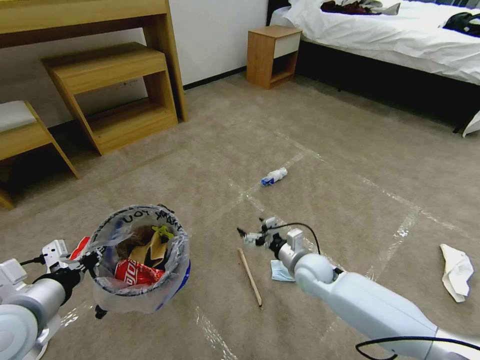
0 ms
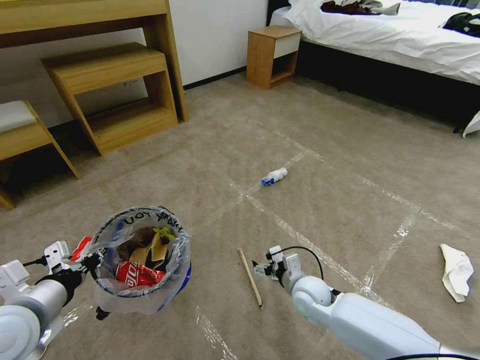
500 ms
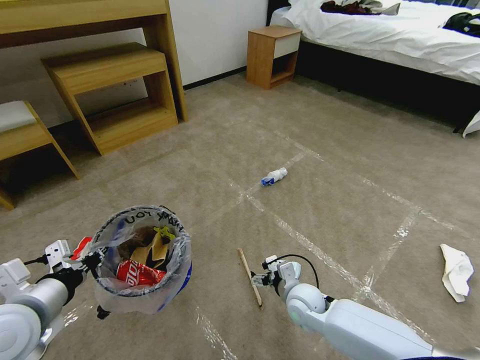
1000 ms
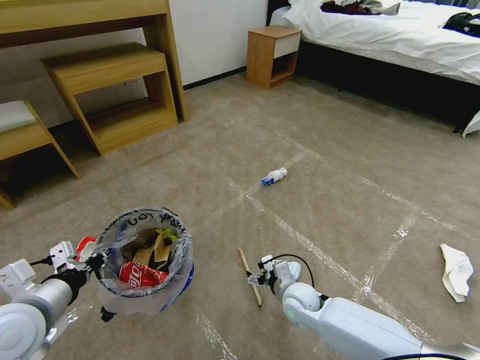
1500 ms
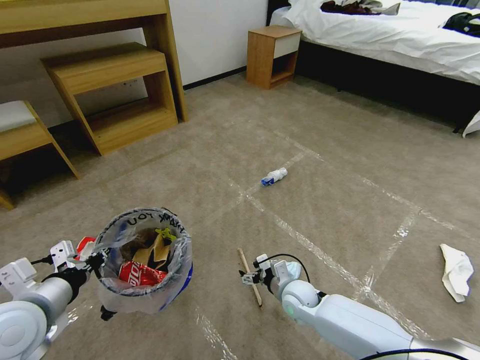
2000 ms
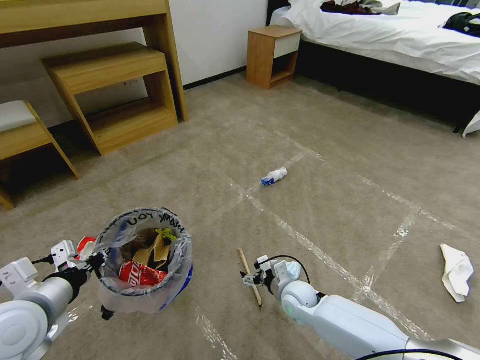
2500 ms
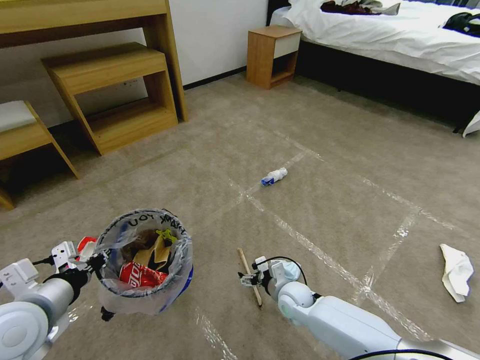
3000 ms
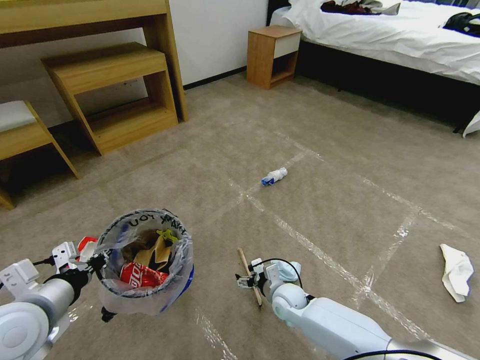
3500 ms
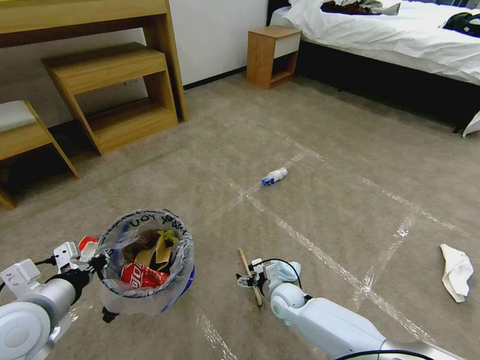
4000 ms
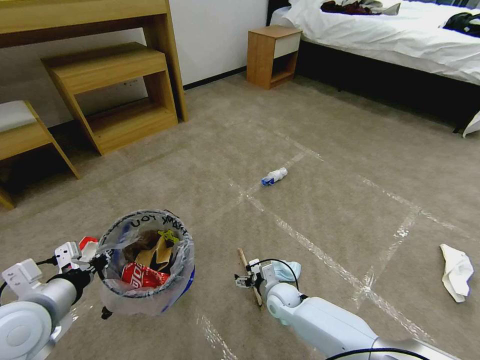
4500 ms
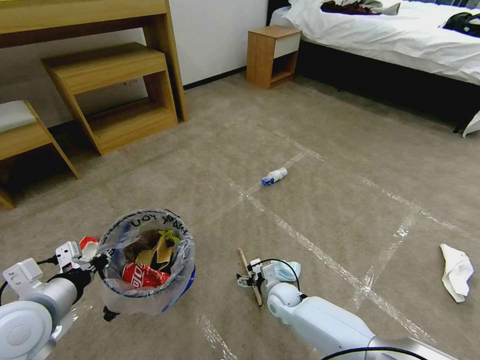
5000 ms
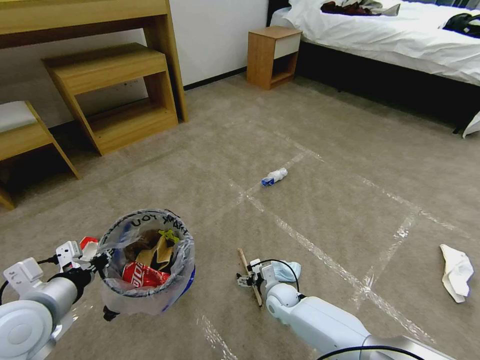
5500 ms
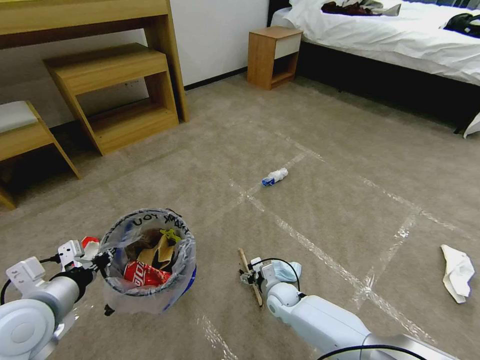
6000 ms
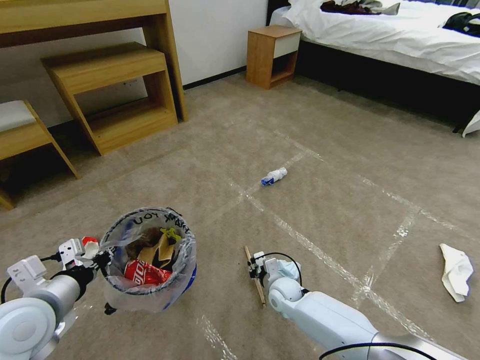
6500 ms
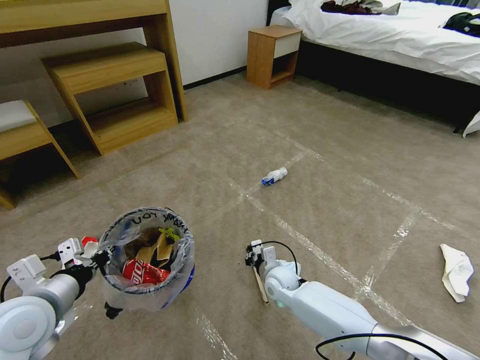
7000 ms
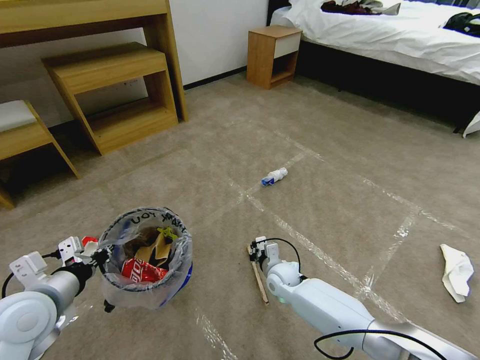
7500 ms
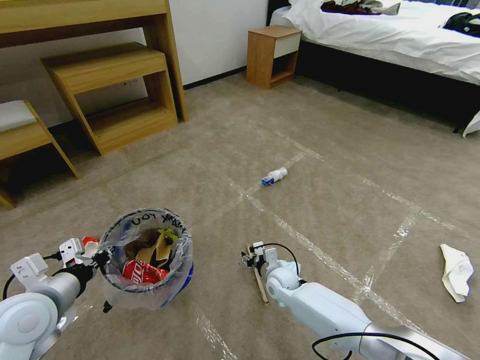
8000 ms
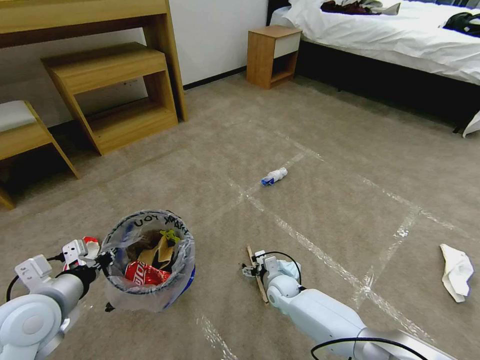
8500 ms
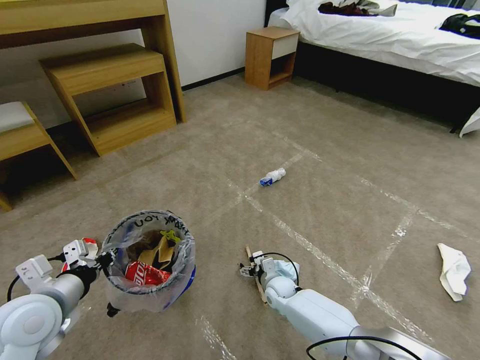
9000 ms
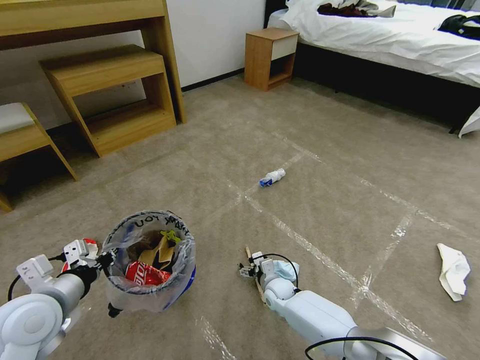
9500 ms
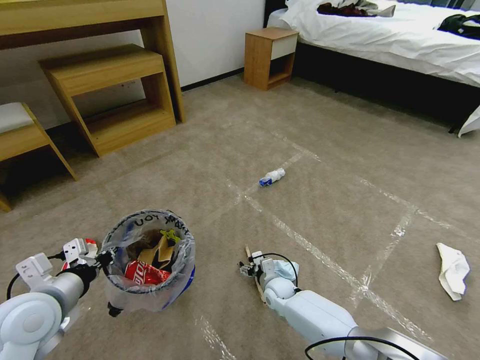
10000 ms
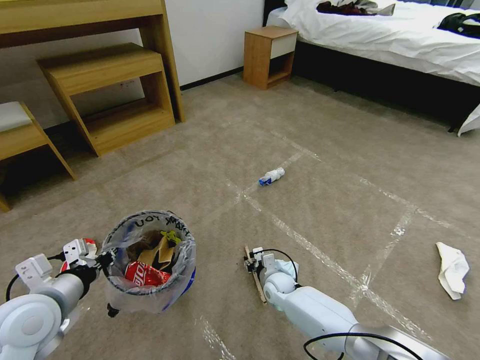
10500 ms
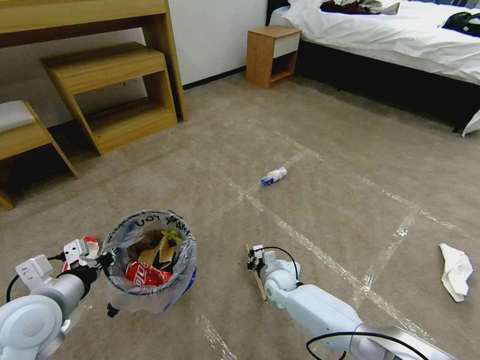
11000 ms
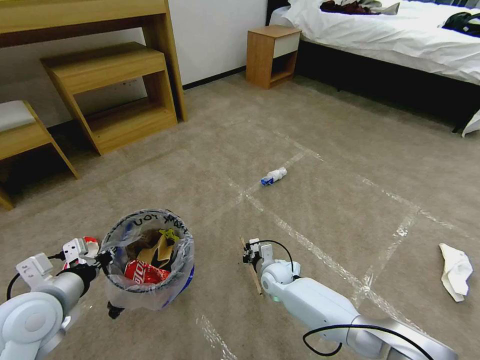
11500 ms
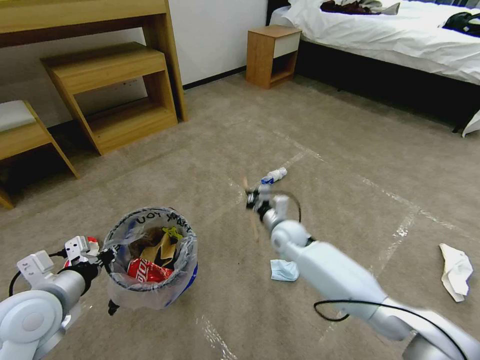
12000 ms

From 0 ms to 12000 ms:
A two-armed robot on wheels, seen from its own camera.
Task of the whole recording: Pick up the trash bin and place the garbage on the floor into it.
From 0 ms to 2000 ms: The right gripper is displaced downward by roughly 10 cm.
From 2000 ms to 4000 ms: The grippers stay close to where they were, moving slightly.
From 4000 ms to 6000 ms: There are only small adjustments of the grippers.
From 6000 ms to 8000 ms: The right gripper closes and opens again.
From 8000 ms to 10000 ms: The right gripper heads downward, covering approximately 5 cm.
From 10000 ms to 12000 ms: The right gripper travels upward and forward by roughly 20 cm, and closes its fingers.

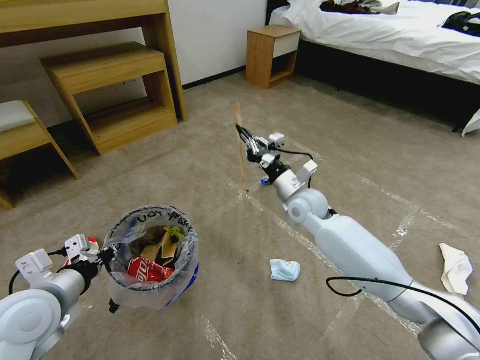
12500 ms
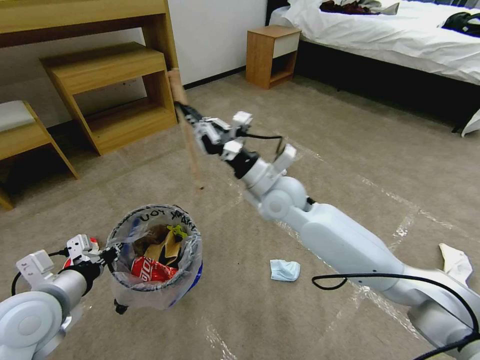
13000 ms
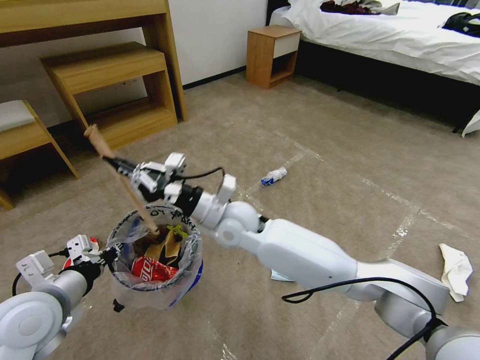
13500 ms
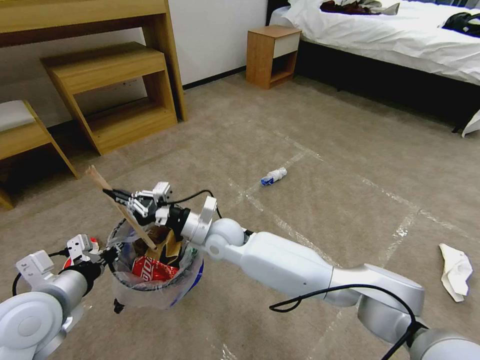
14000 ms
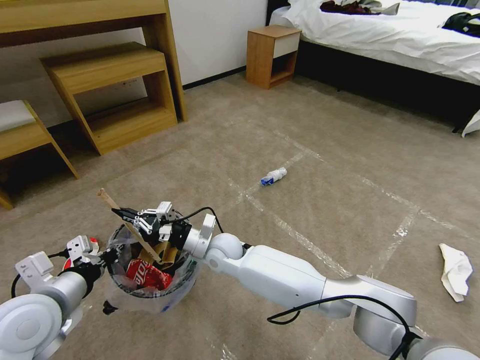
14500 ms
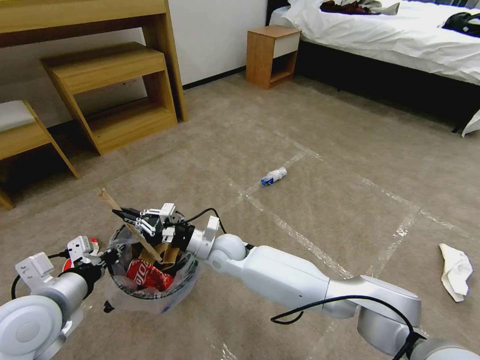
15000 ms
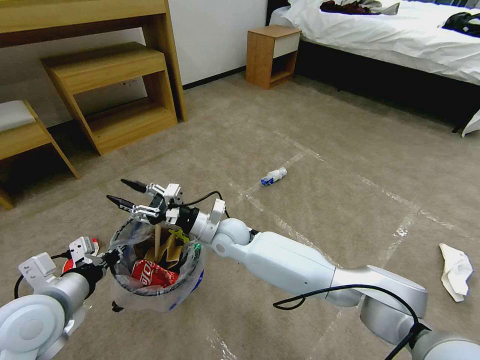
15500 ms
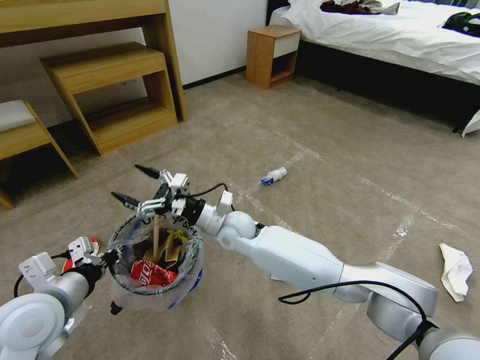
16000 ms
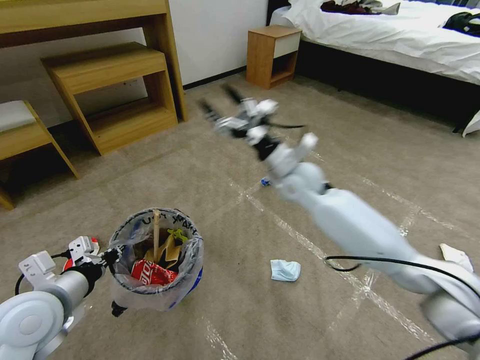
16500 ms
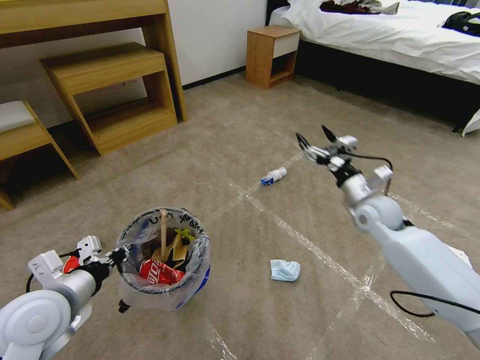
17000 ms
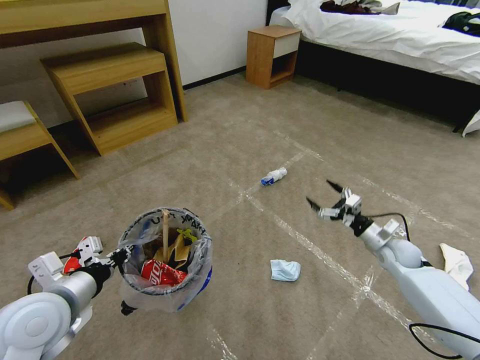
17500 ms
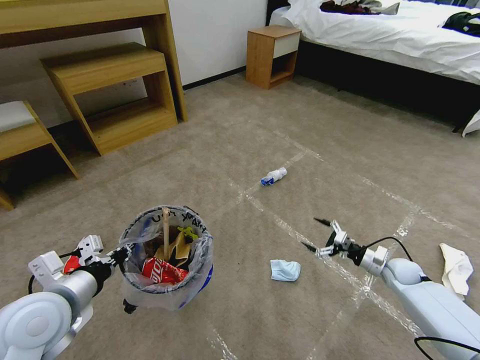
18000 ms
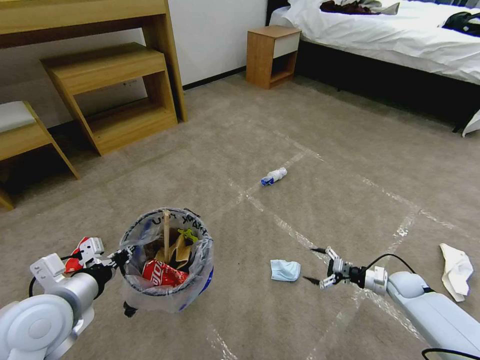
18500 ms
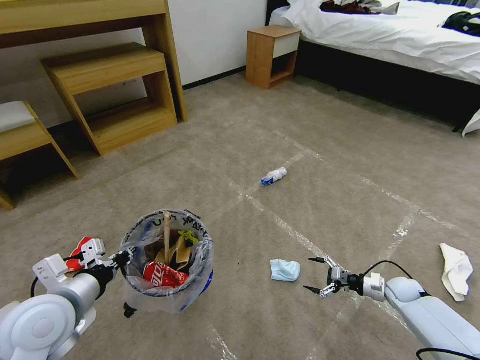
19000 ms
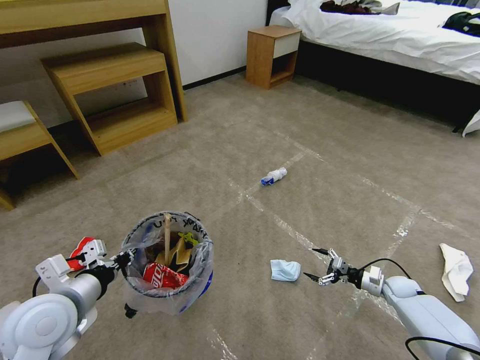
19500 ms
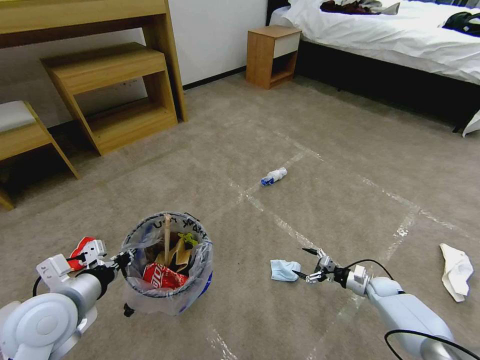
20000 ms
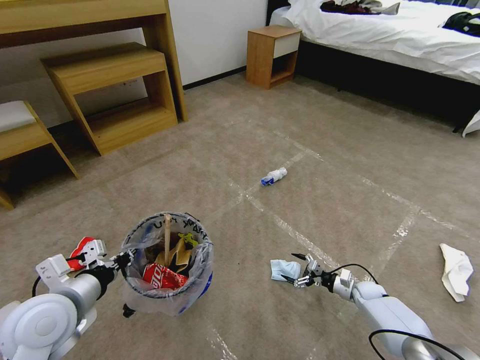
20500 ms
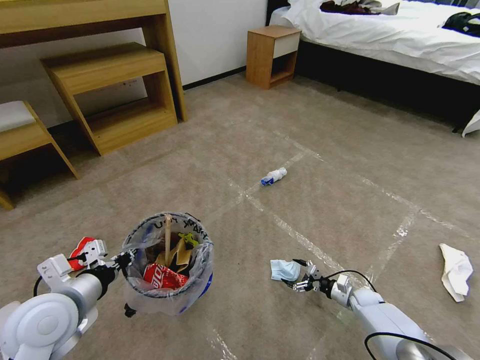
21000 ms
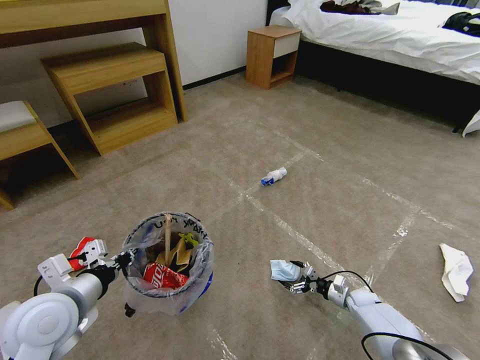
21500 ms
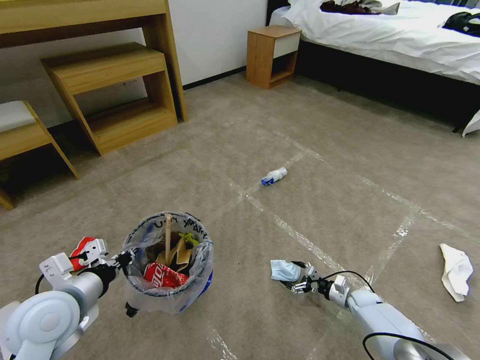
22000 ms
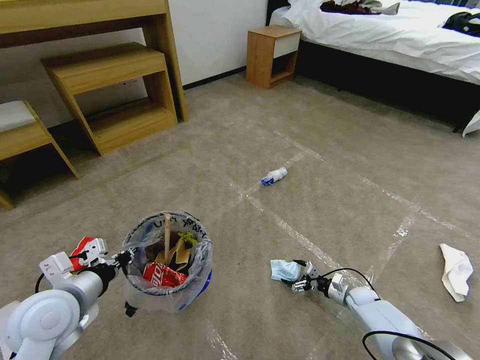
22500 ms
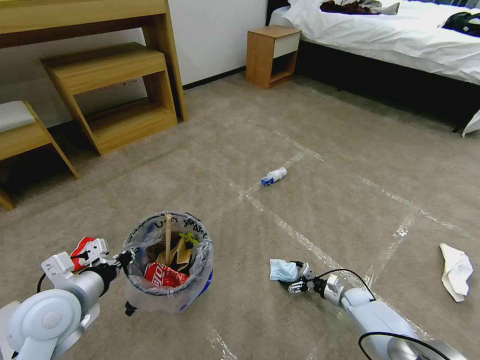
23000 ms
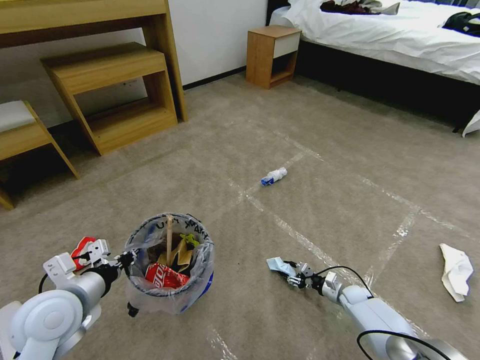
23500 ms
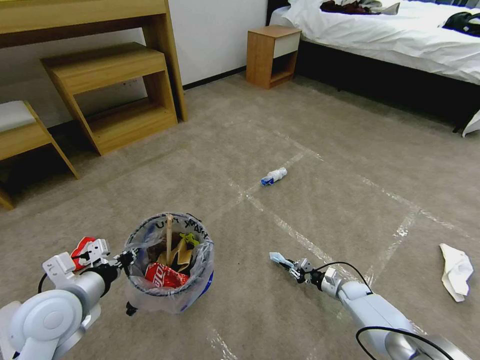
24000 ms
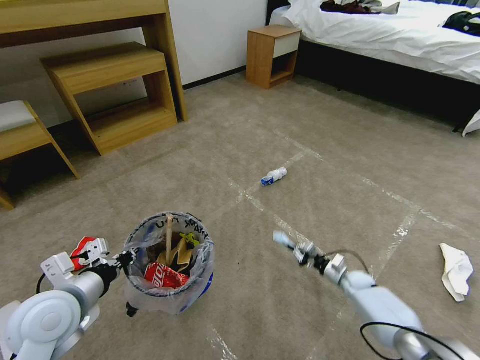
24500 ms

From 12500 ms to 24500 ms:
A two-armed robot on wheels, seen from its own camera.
Task of the whole recording: Pick up the trash bin and place the garbage on the floor into it.
From 12500 ms to 14500 ms: The right gripper heads to the left and downward, covering roughly 25 cm.
From 14500 ms to 16500 ms: The right gripper heads to the right, upward and forward, covering some 30 cm, and opens up.
From 16500 ms to 18500 ms: The right gripper shifts roughly 40 cm to the right and downward.
From 18500 ms to 20500 ms: The right gripper is displaced downward and to the left by roughly 10 cm.
From 20500 ms to 22500 ms: The grippers make only small movements.
From 22500 ms to 24500 ms: The right gripper closes its fingers.

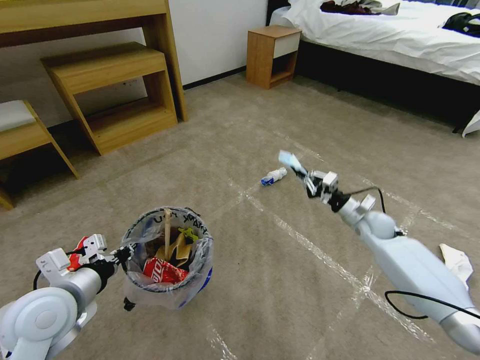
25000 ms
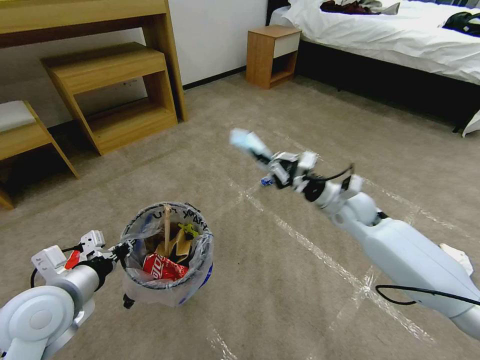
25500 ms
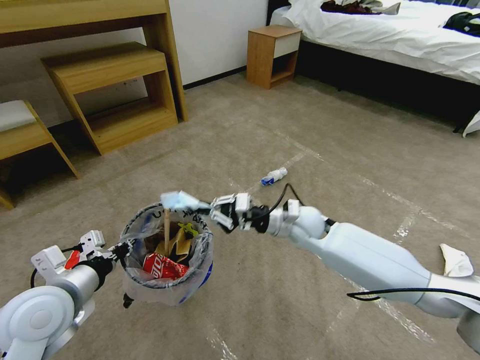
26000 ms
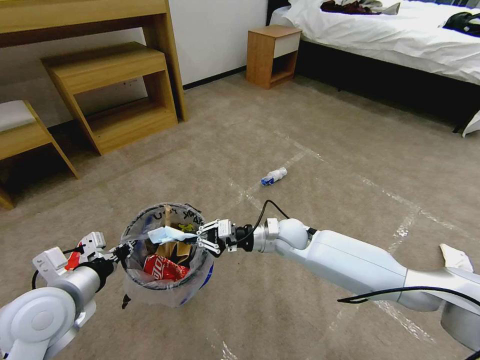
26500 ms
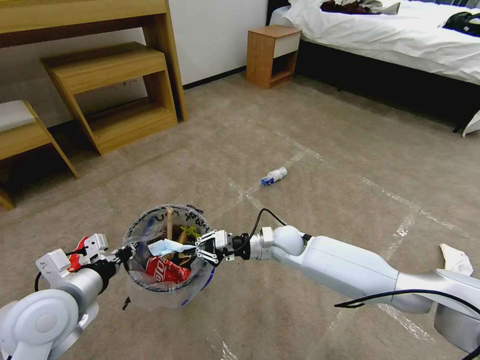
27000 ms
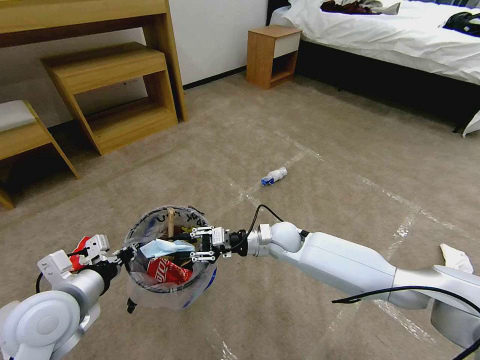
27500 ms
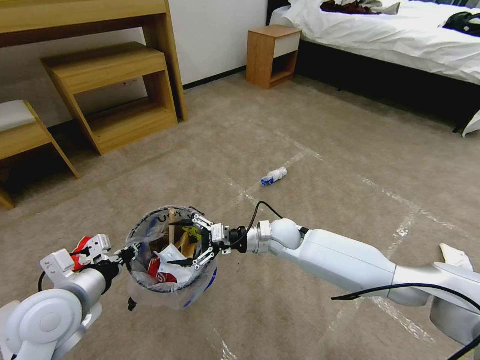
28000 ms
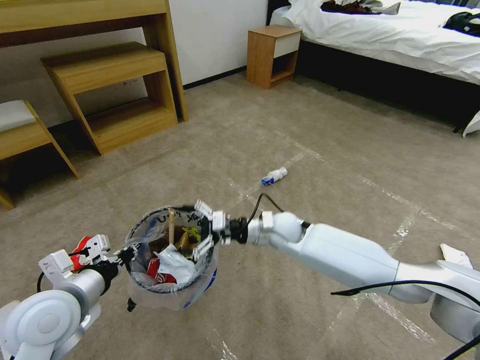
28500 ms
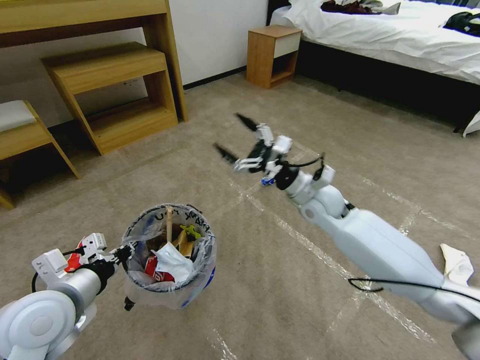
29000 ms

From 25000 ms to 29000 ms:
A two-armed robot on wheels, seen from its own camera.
Task of the whole recording: Pick up the trash bin and place the garbage on the floor into it.
From 25000 ms to 27000 ms: The right gripper goes some 25 cm to the left.
From 27000 ms to 29000 ms: The right gripper moves upward and to the right, some 15 cm, and opens its fingers.
